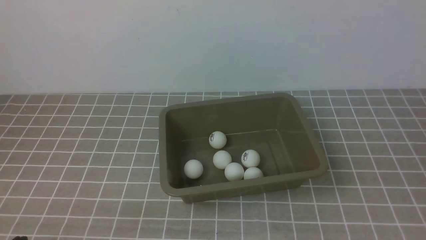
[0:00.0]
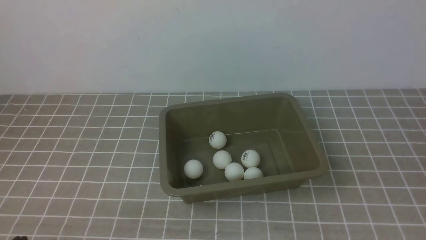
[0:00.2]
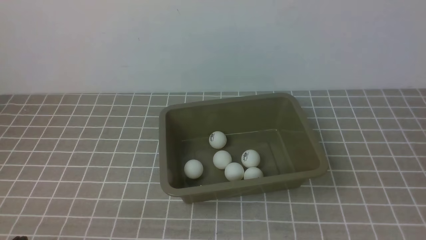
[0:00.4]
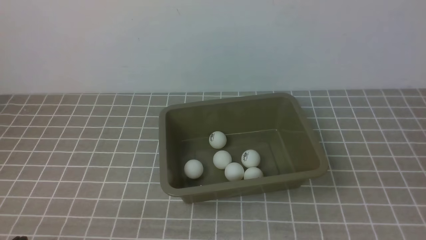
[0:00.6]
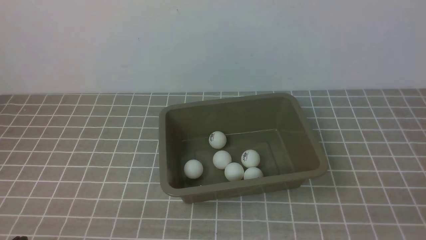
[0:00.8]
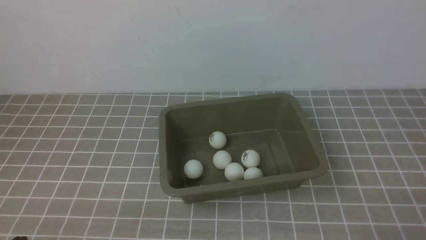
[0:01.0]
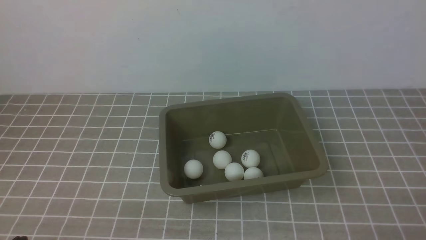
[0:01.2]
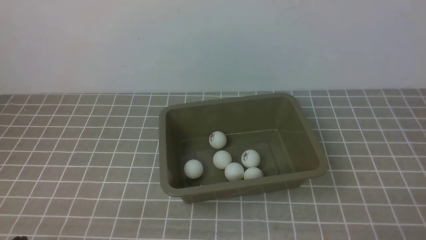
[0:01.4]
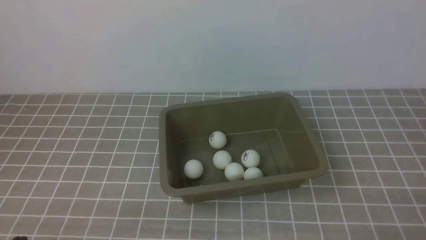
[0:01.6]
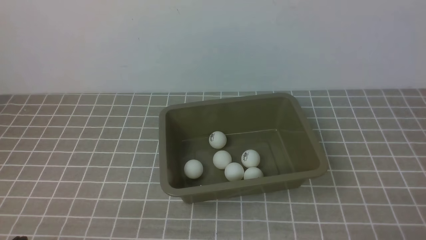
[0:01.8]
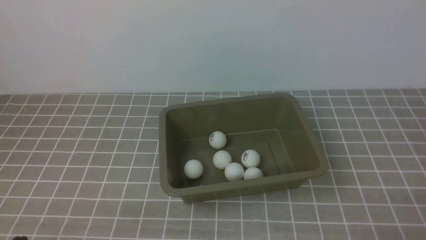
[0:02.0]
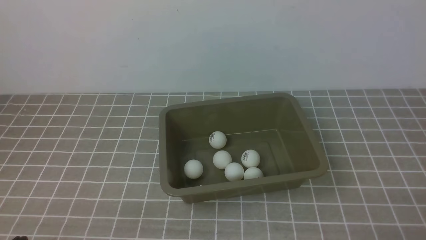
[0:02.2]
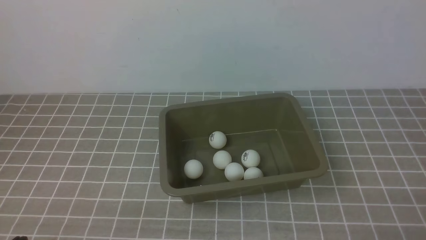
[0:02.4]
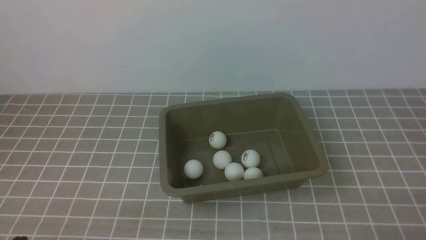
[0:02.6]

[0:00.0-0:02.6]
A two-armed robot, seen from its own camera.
0:01.2 to 0:02.6: Both grippers stay put.
